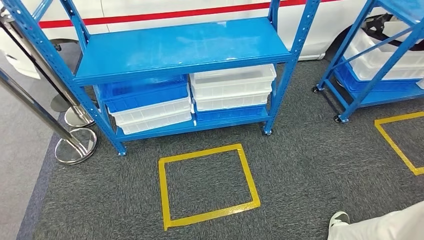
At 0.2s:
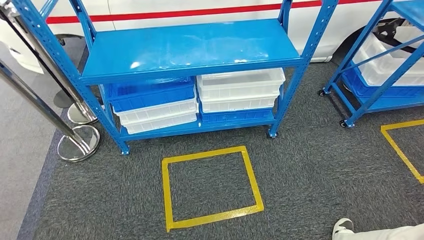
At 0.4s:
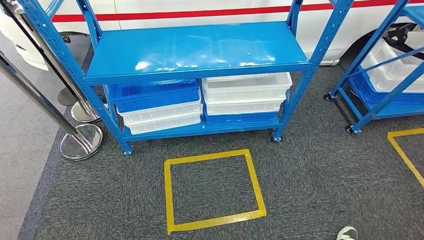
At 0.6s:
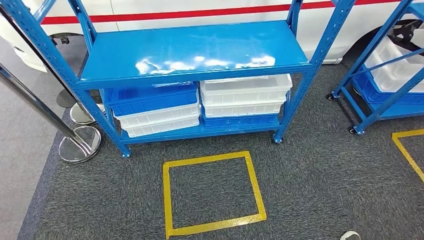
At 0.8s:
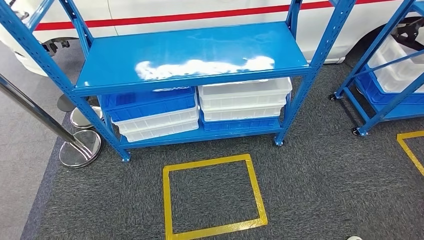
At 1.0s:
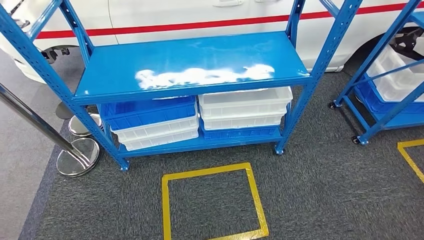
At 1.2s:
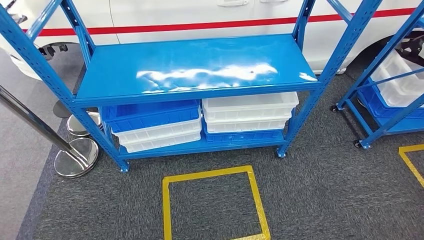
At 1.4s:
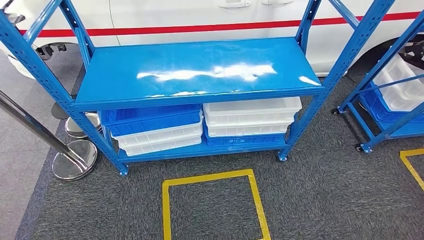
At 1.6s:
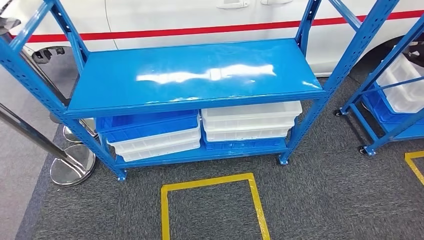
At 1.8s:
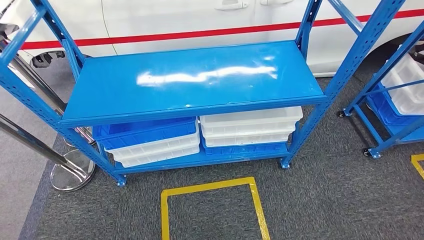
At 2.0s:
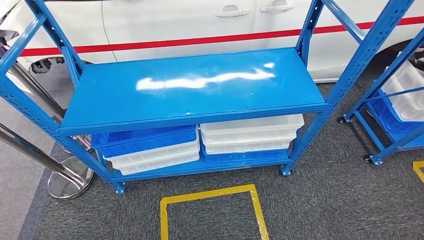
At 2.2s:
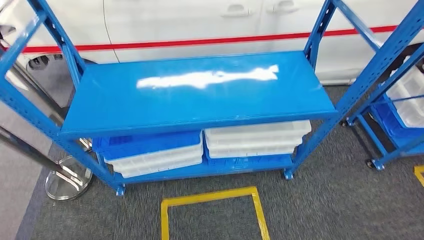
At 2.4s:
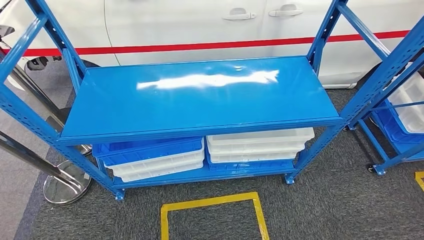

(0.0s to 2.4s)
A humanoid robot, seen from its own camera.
Step, 0.0s - 2.4s: Return to the initial position at the shelf.

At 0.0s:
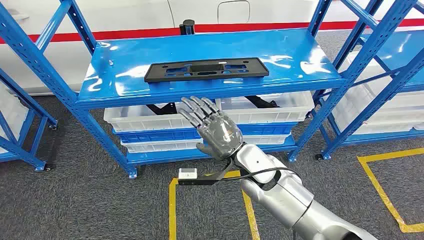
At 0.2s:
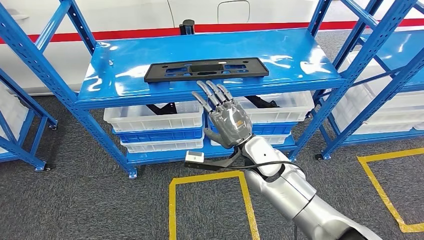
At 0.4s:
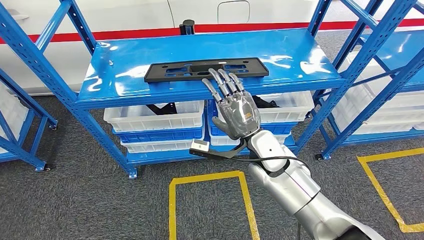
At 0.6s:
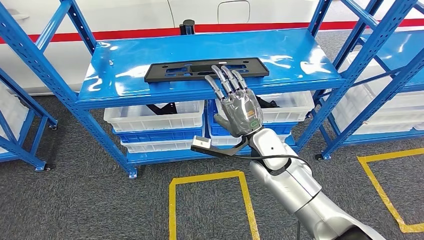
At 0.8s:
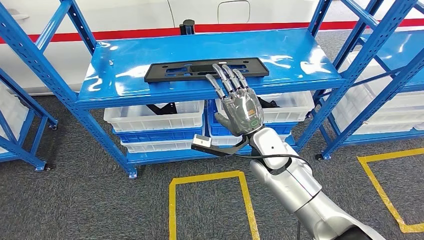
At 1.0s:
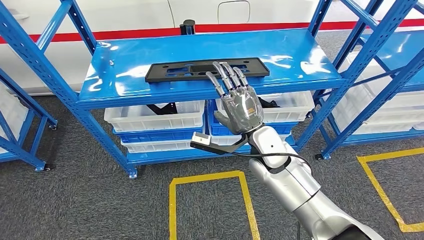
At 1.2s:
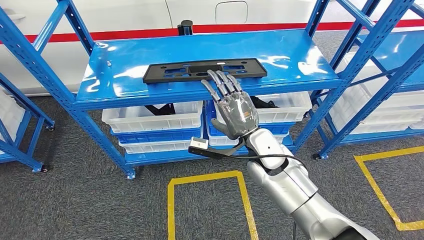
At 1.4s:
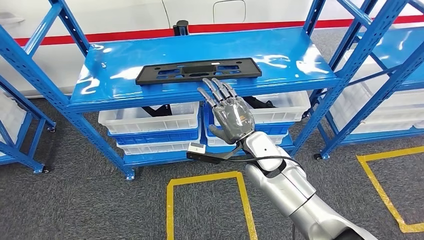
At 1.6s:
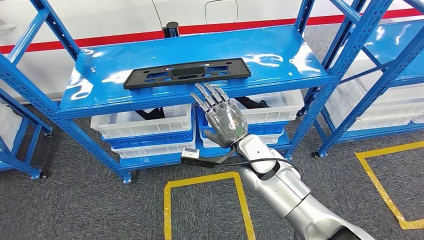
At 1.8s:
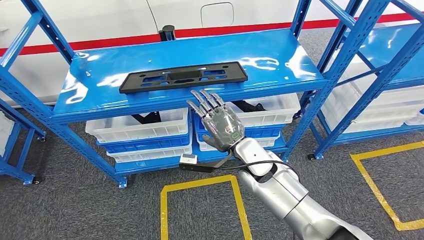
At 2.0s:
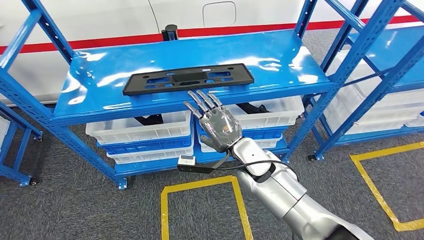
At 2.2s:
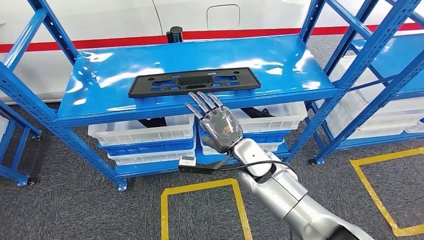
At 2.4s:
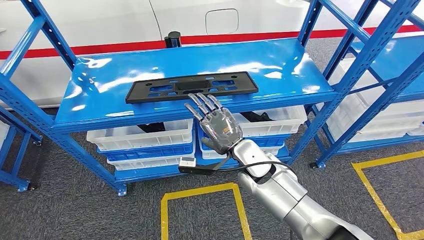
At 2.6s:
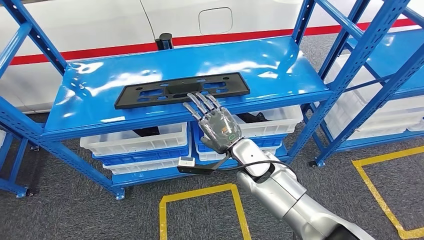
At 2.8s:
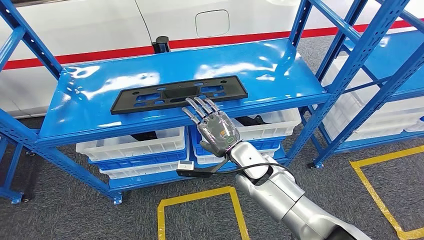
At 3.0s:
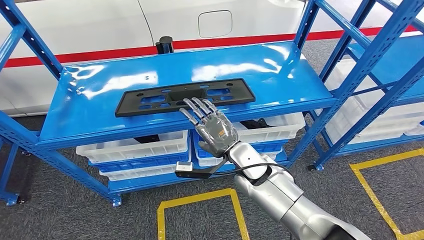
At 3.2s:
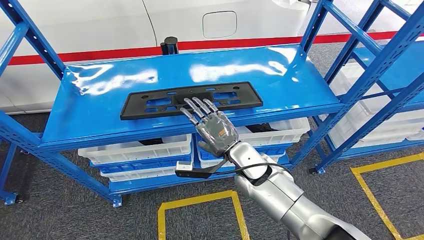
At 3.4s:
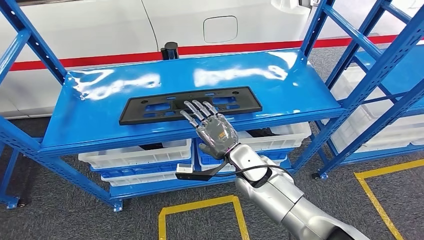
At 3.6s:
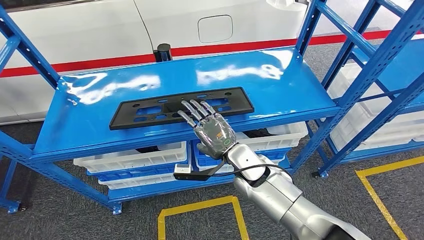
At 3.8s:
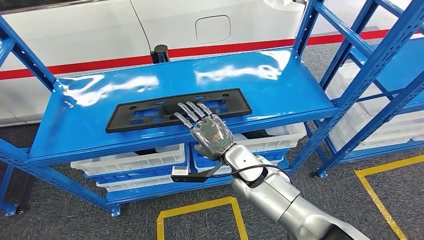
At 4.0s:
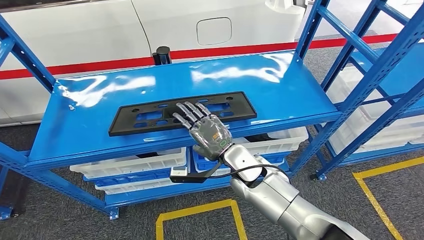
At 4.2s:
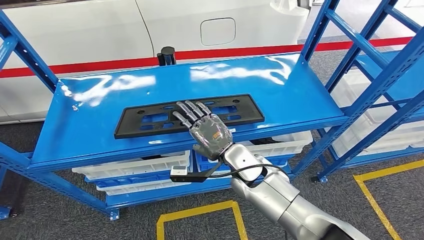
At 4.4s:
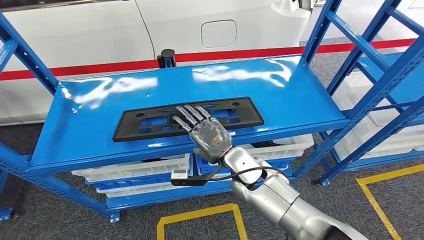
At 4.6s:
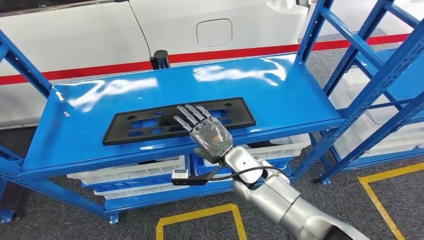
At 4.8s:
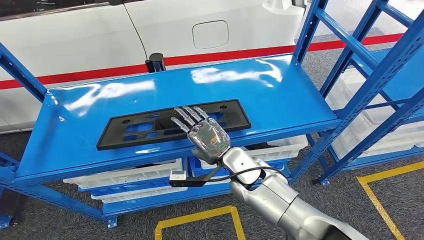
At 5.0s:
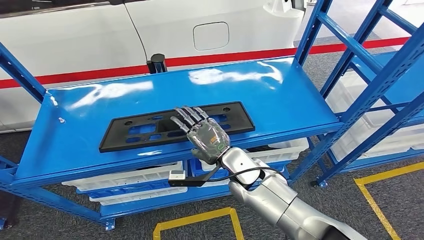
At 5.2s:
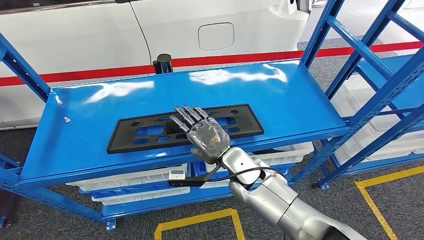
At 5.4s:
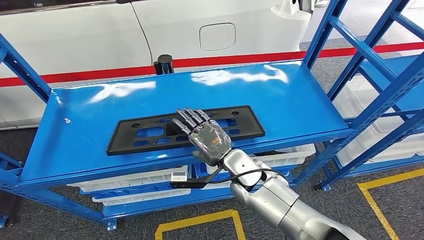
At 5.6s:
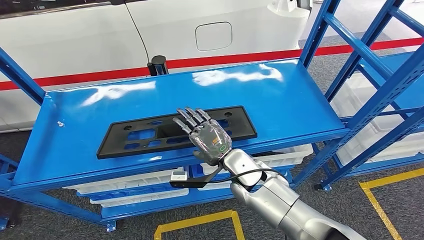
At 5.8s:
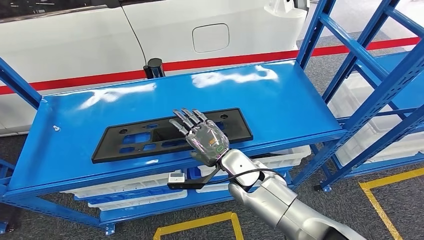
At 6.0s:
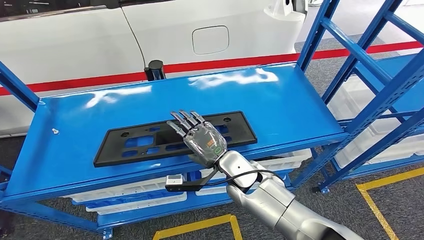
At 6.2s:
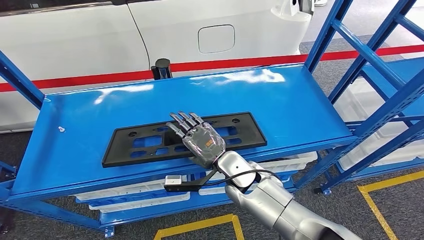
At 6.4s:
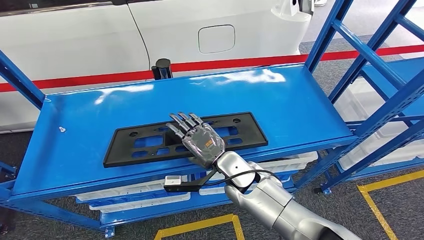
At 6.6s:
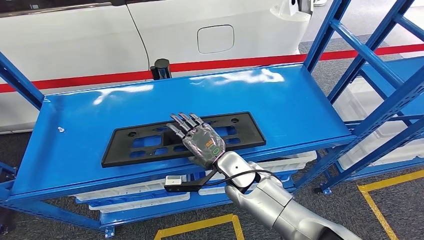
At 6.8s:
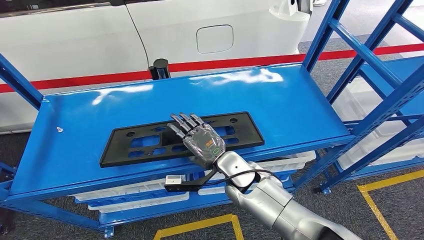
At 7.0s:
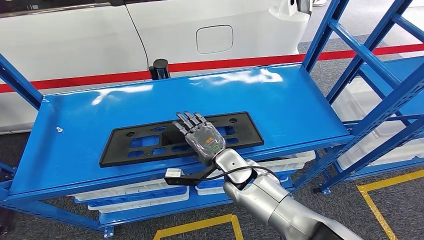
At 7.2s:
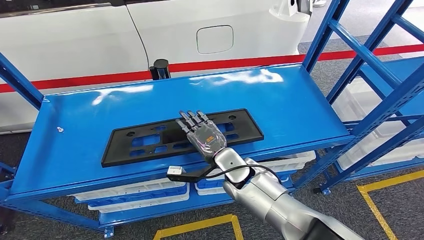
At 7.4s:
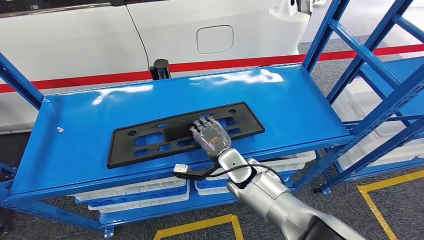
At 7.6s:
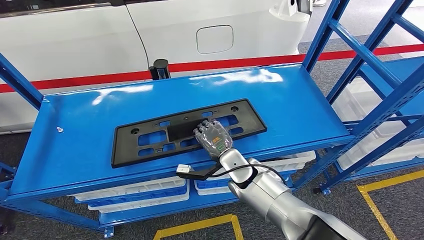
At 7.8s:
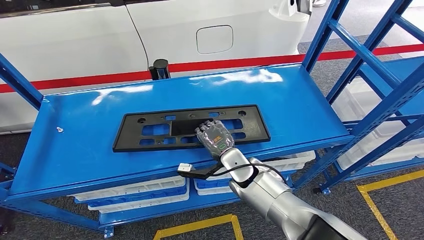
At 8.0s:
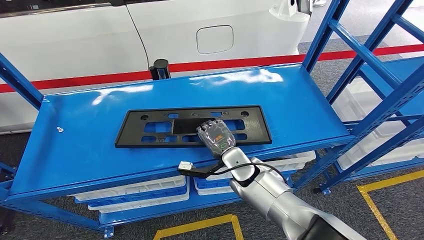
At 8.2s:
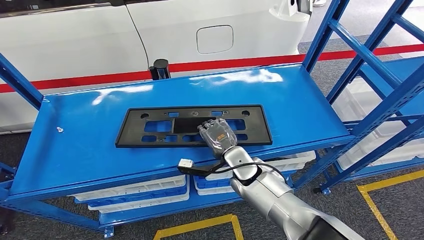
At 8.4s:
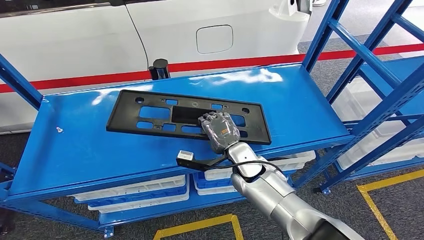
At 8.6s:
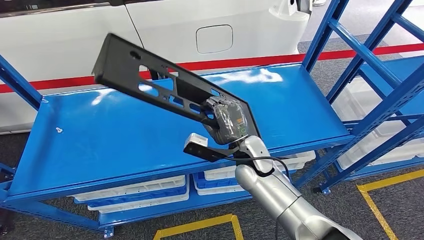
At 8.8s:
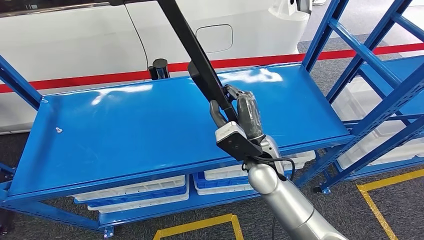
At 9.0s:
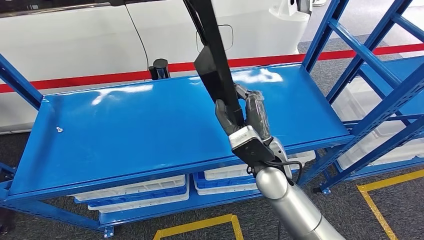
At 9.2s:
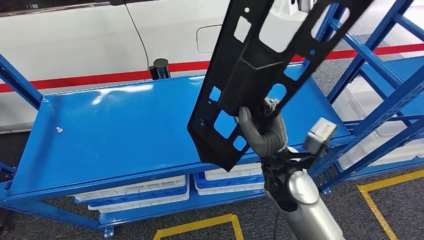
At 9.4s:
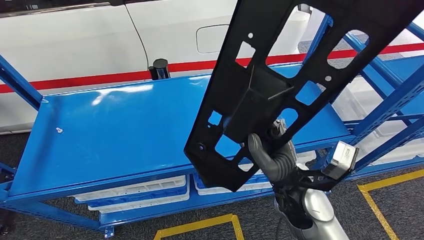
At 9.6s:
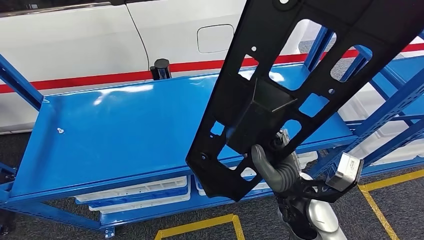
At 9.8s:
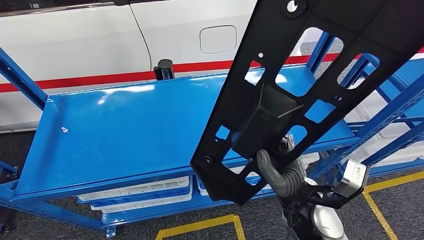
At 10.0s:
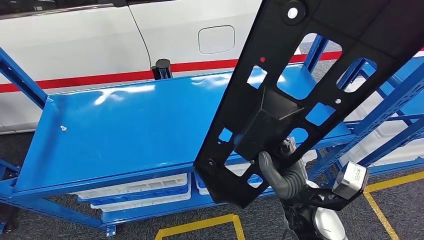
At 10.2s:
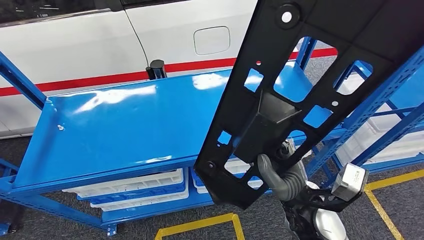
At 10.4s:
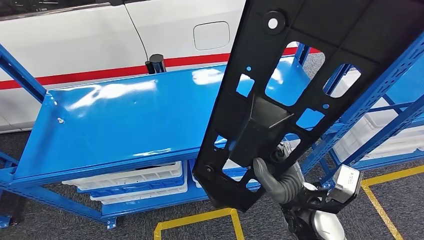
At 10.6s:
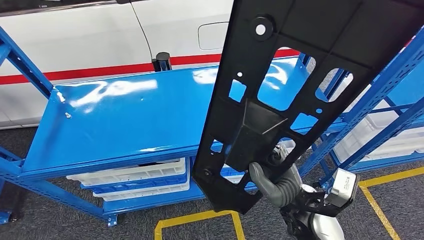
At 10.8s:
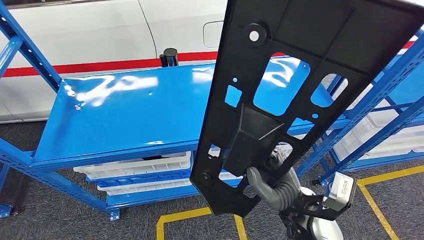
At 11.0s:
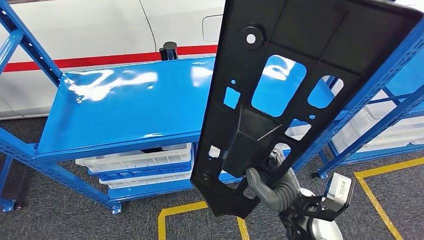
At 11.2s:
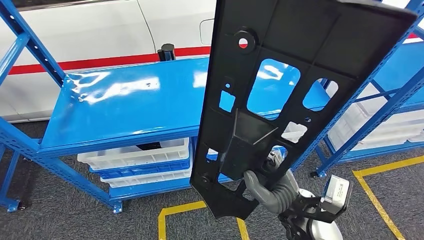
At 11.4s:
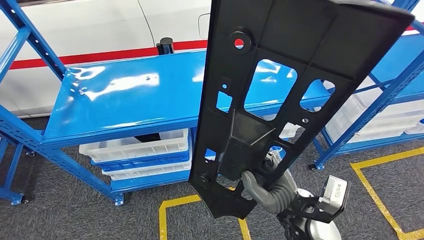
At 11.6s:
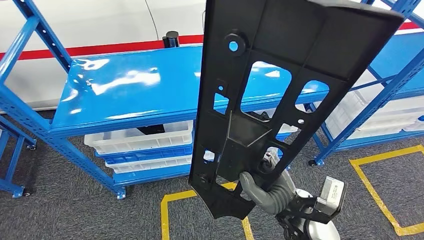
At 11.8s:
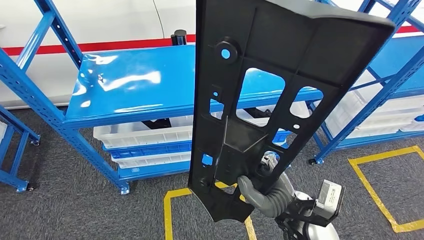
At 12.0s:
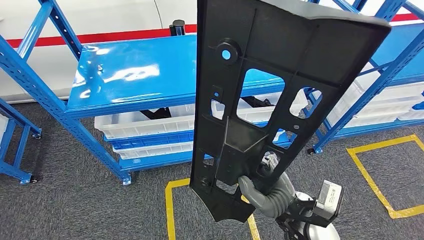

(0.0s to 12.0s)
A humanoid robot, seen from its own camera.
7.6s - 9.0s: The right hand is displaced upward by approximately 10 cm.

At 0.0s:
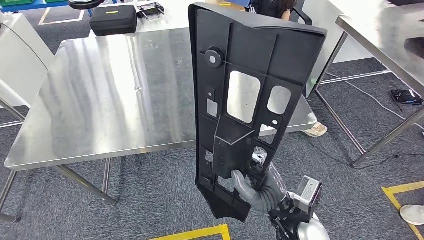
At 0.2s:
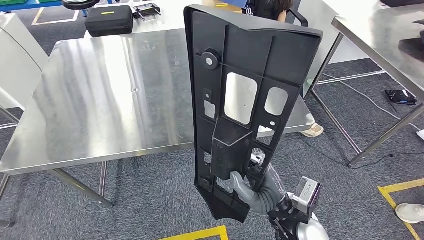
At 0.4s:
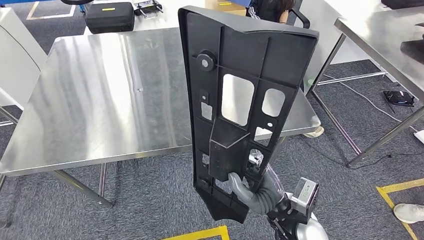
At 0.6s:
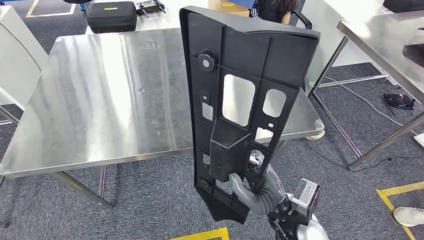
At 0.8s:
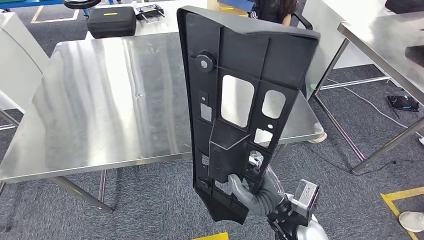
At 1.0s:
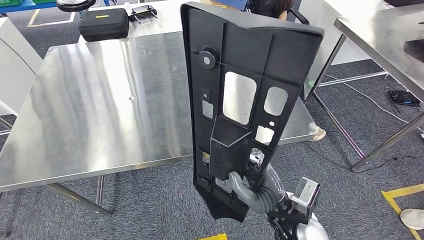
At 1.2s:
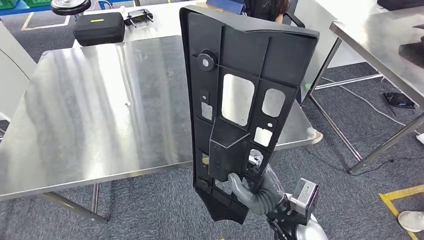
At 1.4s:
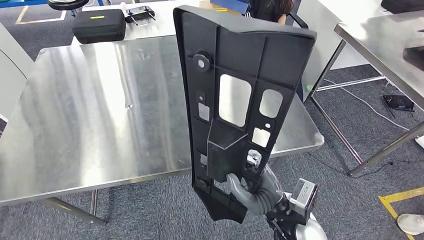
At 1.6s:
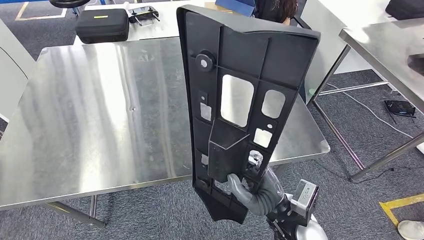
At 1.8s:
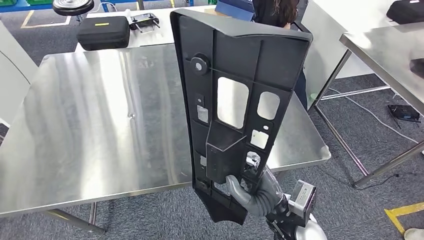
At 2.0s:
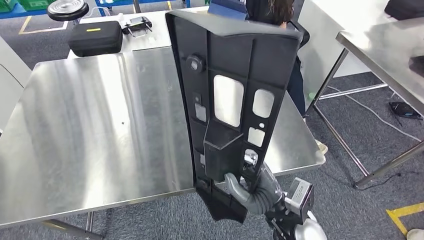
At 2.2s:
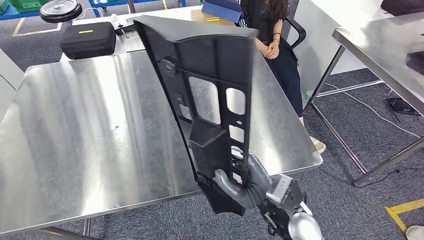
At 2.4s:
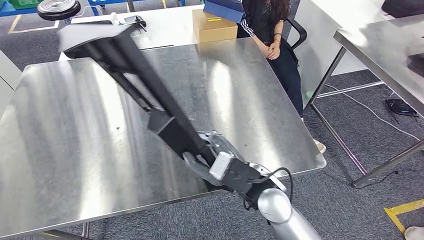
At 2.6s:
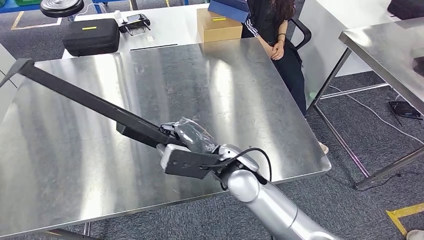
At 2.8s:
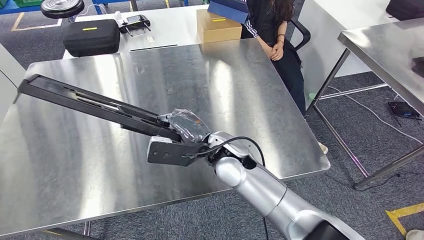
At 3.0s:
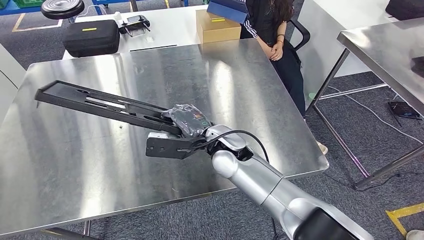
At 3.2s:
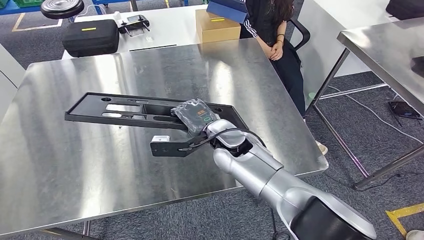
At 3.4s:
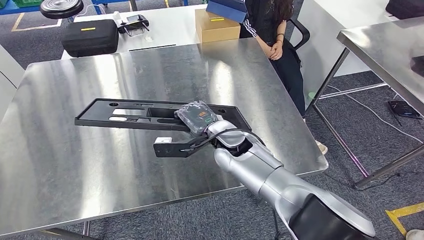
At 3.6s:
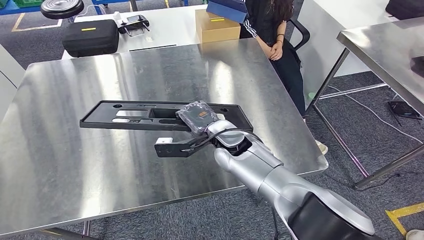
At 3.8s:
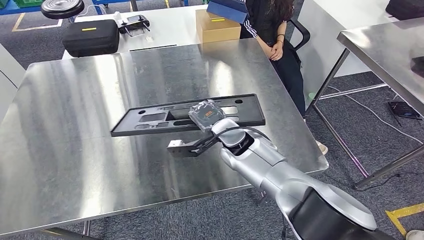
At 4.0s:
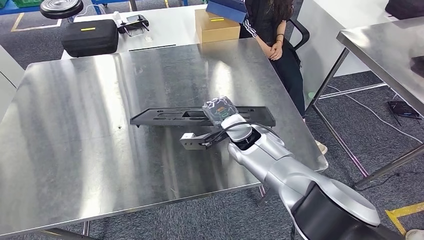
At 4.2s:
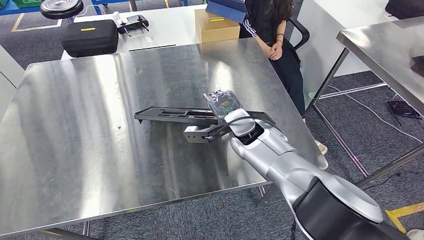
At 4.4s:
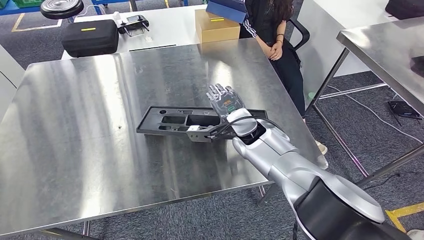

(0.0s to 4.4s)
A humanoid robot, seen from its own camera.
3.0s - 4.4s: The right hand travels forward and to the right by roughly 10 cm.
